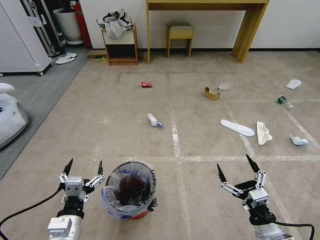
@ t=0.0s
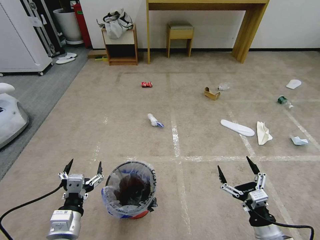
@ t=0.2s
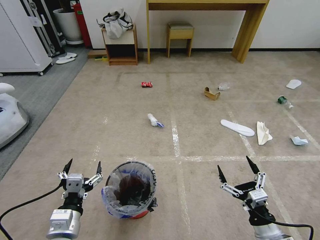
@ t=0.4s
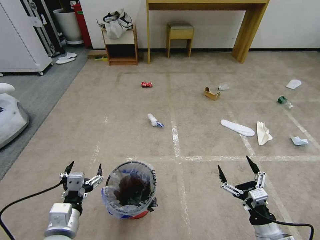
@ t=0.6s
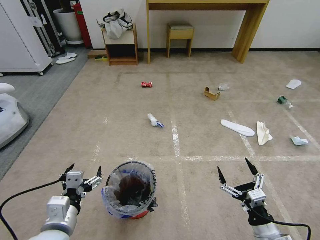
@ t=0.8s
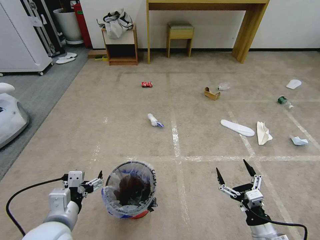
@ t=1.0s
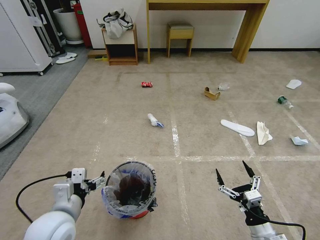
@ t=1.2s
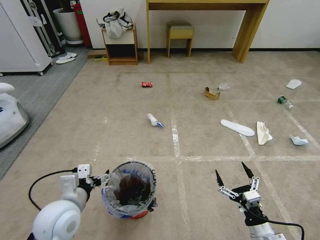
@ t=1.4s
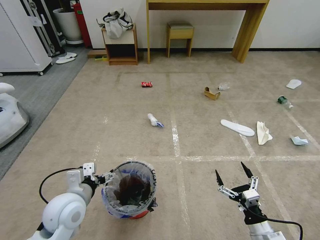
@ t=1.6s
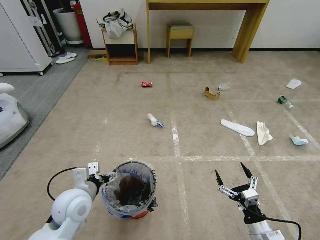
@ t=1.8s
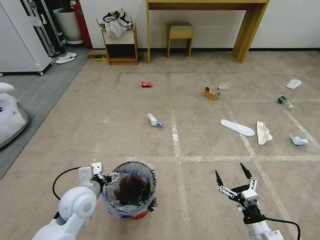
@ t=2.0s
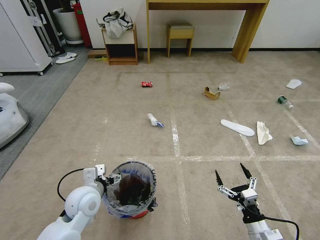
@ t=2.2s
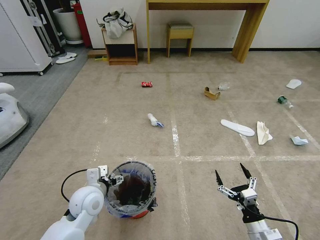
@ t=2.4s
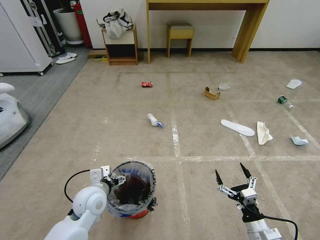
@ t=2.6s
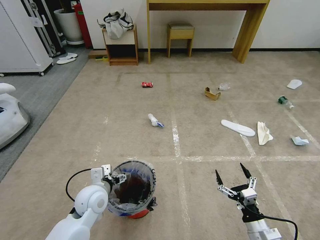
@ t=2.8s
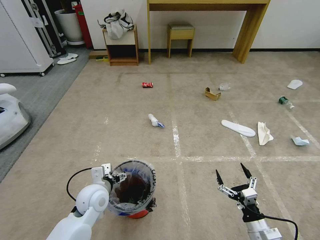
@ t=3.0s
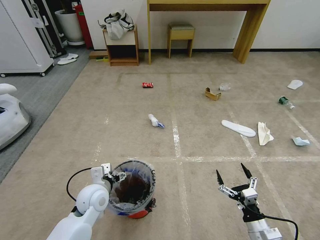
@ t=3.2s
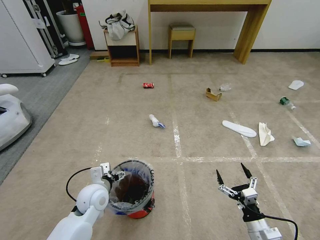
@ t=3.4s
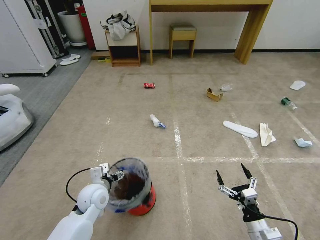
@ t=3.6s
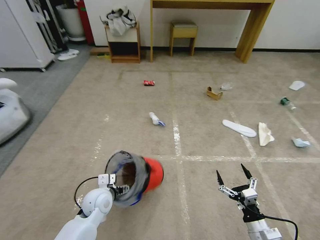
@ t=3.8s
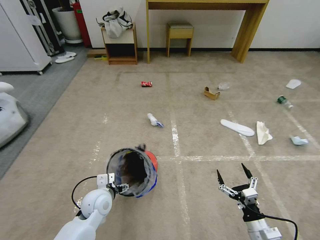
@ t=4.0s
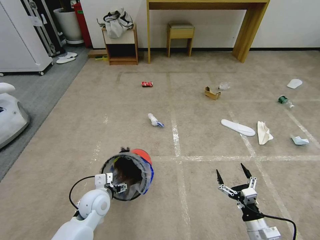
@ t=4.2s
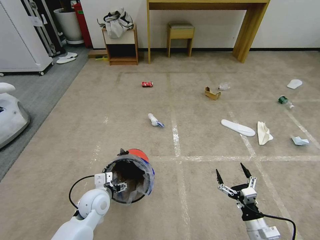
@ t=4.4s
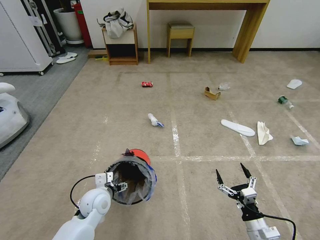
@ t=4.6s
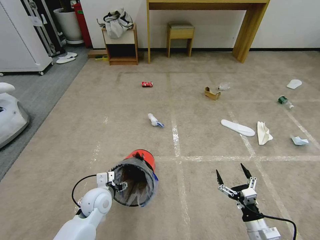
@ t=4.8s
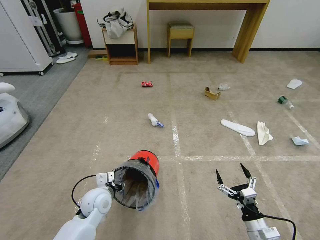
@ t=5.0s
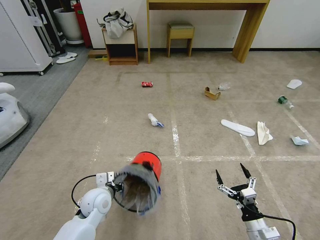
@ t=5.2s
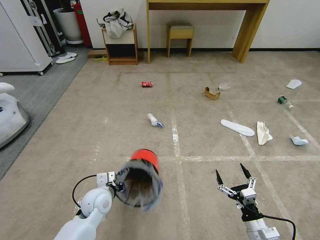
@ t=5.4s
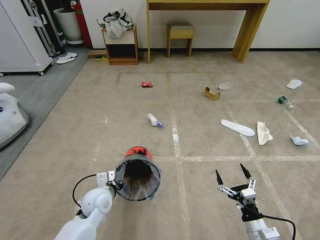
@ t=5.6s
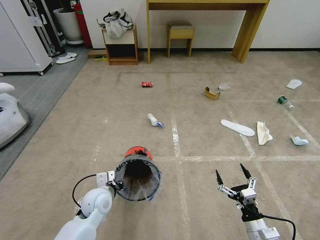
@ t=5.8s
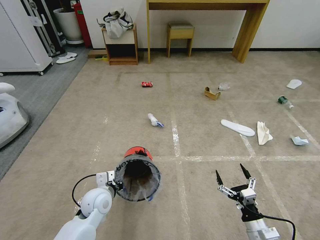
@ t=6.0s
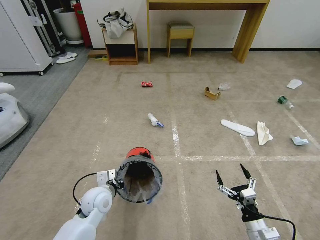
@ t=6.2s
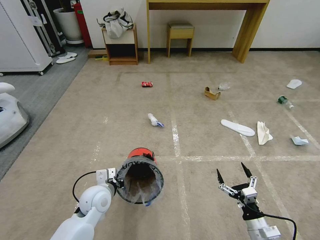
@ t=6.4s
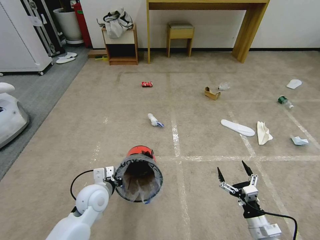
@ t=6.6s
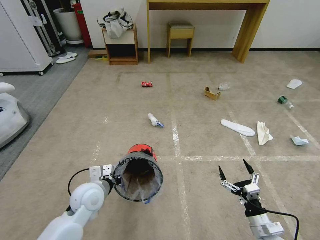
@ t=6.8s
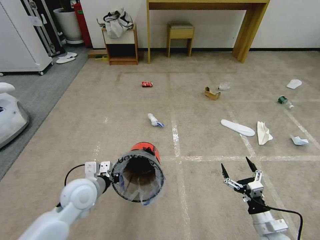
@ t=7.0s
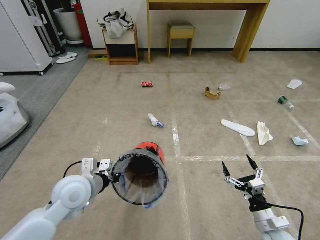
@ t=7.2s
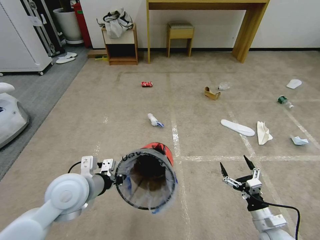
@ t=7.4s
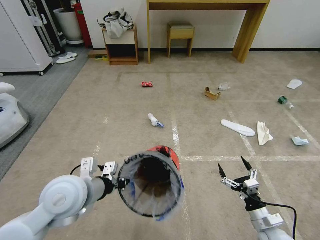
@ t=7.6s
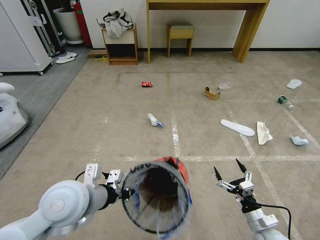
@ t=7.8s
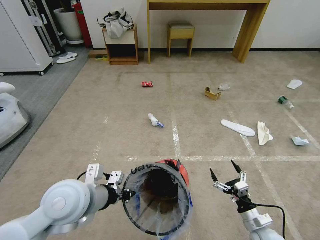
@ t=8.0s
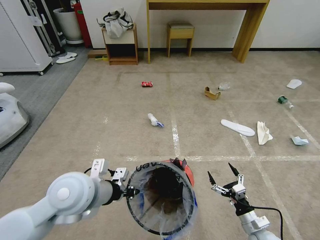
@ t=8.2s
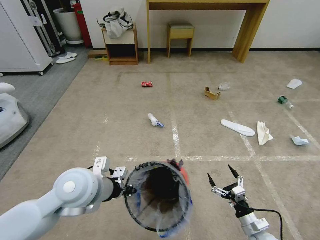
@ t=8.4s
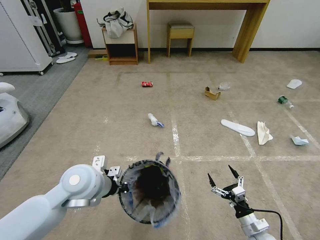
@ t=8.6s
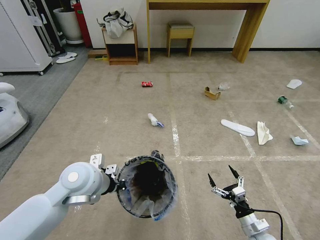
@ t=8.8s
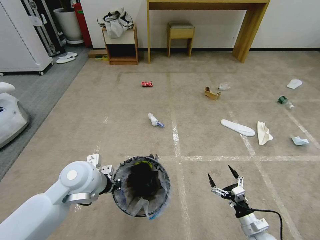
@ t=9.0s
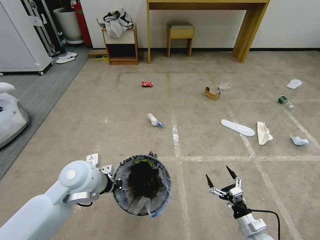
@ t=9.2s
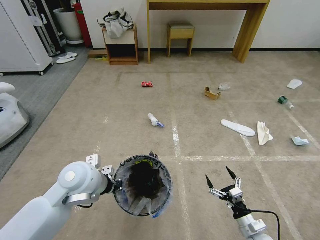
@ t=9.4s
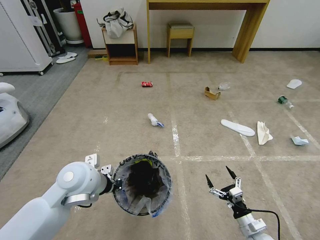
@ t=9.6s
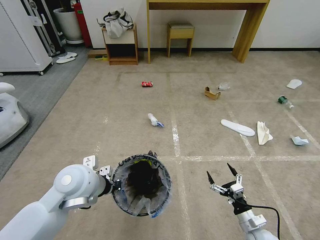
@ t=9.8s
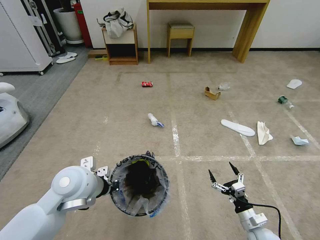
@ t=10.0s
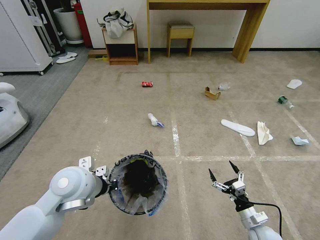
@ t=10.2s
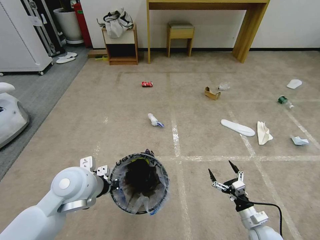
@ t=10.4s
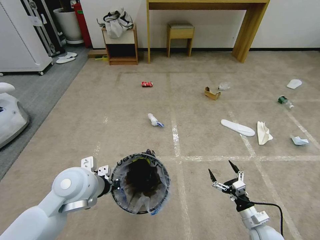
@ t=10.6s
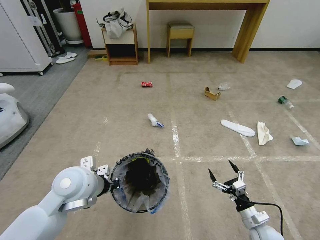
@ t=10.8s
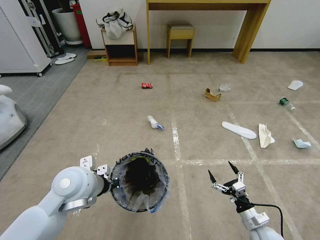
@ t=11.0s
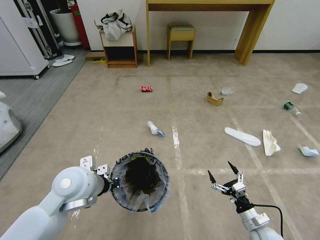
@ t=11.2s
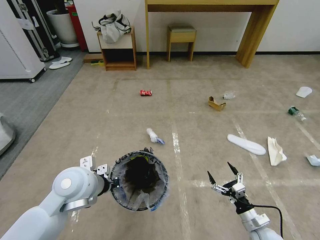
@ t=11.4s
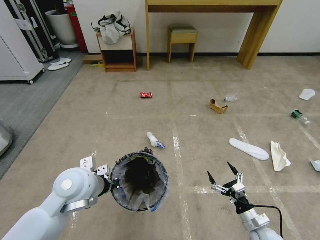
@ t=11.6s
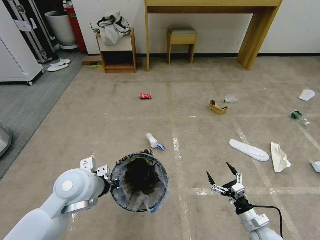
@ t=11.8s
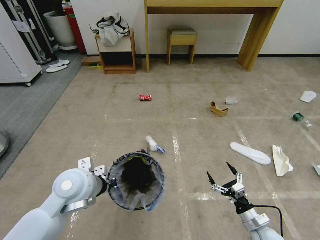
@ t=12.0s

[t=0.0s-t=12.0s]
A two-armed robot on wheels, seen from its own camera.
Task of the whole recording: Pick up the trash bin and place the garbage on the floor into it.
t=1.6s to t=3.0s: The left gripper moves downward and forward, about 10 cm.
t=3.0s to t=4.4s: There are only small adjustments of the grippers.
t=4.4s to t=6.0s: The left gripper closes.
t=6.0s to t=7.6s: The left gripper shifts about 20 cm upward.
t=7.6s to t=9.0s: The left gripper shifts some 5 cm forward.
t=9.0s to t=10.4s: The grippers make only small movements.

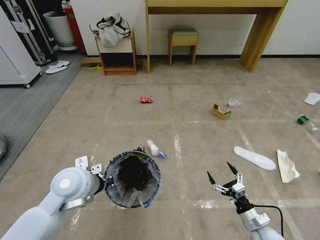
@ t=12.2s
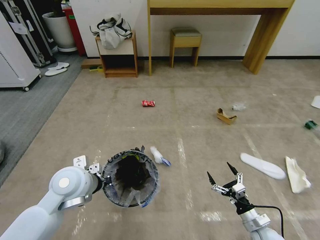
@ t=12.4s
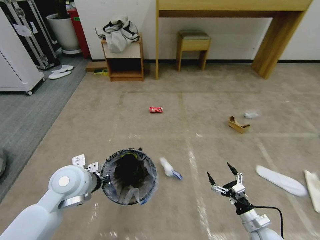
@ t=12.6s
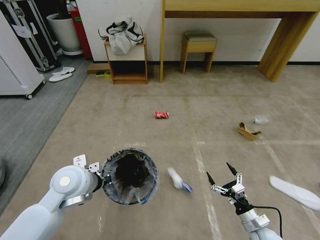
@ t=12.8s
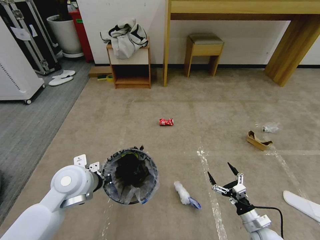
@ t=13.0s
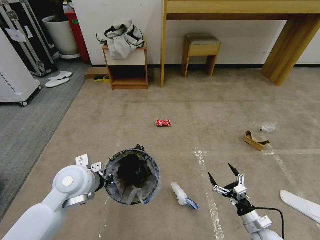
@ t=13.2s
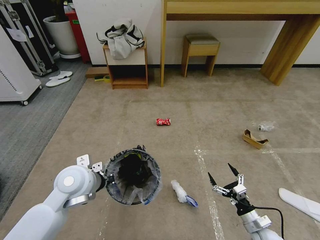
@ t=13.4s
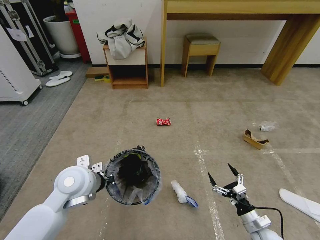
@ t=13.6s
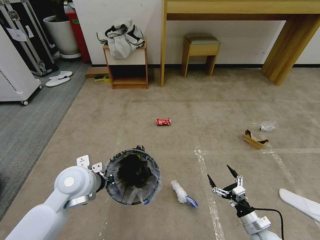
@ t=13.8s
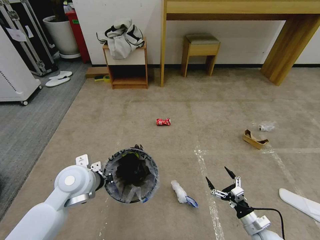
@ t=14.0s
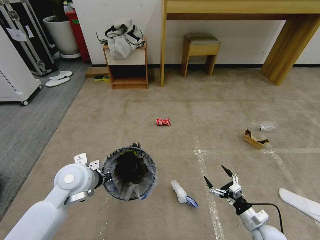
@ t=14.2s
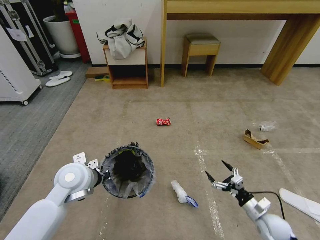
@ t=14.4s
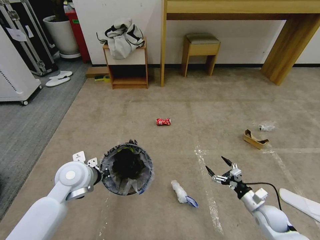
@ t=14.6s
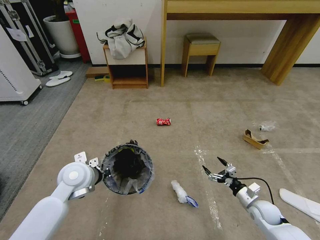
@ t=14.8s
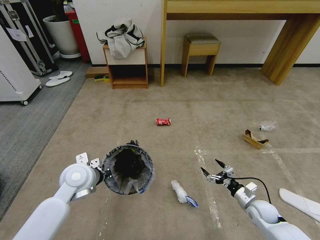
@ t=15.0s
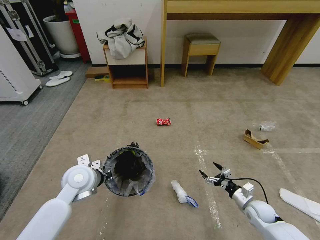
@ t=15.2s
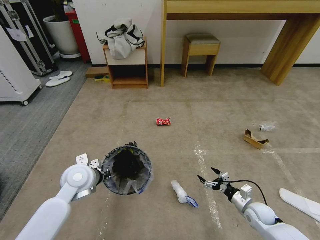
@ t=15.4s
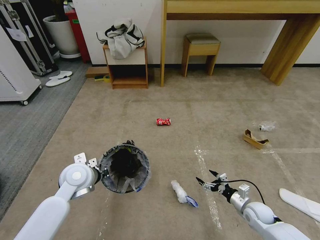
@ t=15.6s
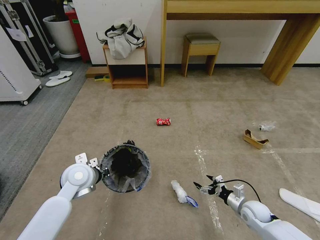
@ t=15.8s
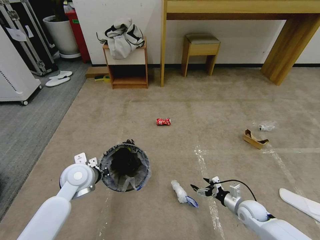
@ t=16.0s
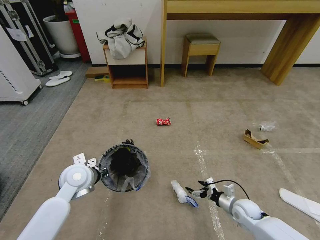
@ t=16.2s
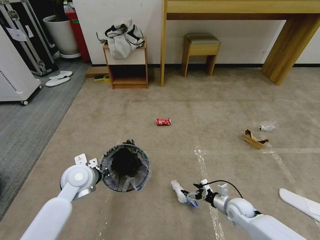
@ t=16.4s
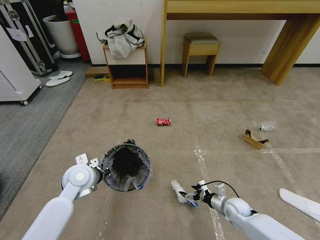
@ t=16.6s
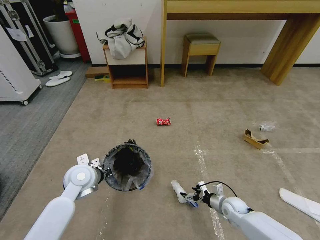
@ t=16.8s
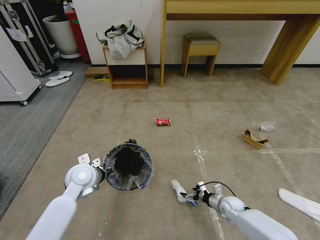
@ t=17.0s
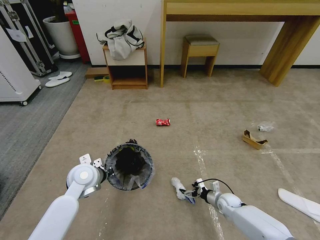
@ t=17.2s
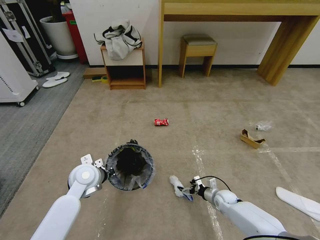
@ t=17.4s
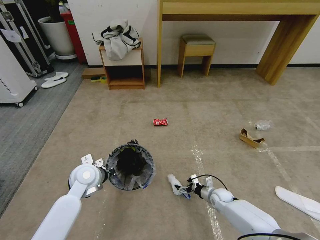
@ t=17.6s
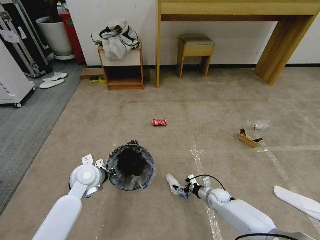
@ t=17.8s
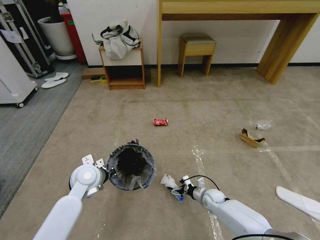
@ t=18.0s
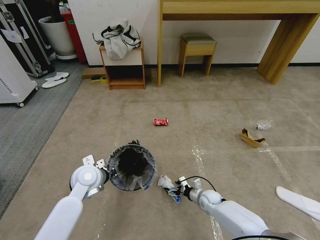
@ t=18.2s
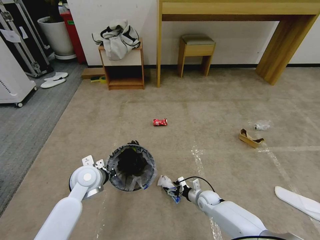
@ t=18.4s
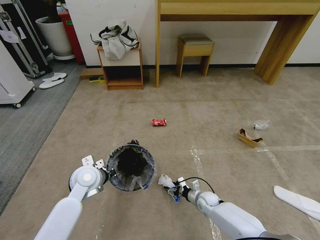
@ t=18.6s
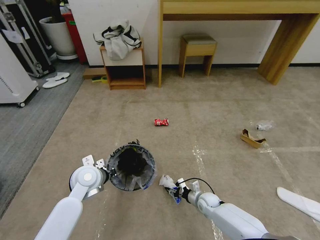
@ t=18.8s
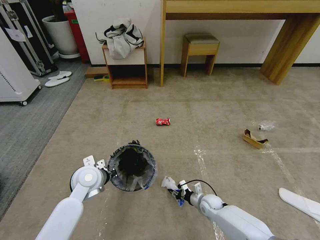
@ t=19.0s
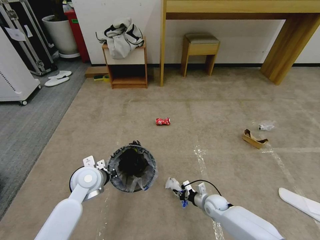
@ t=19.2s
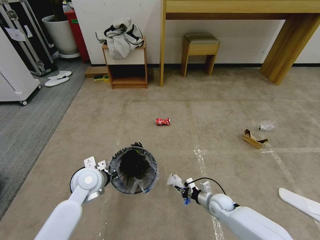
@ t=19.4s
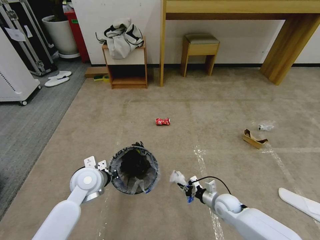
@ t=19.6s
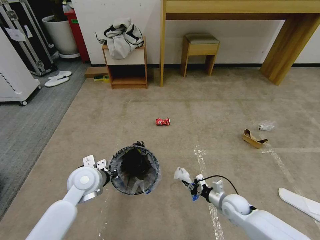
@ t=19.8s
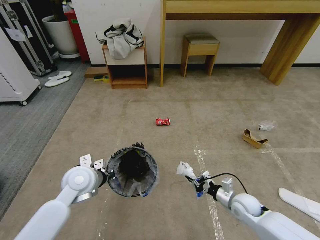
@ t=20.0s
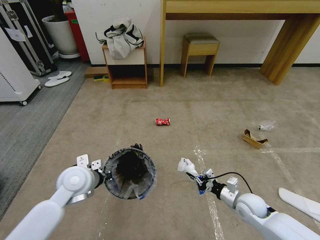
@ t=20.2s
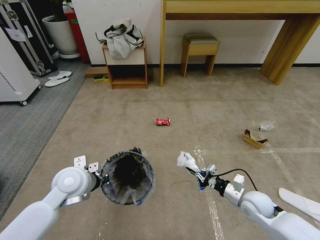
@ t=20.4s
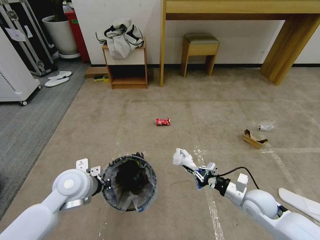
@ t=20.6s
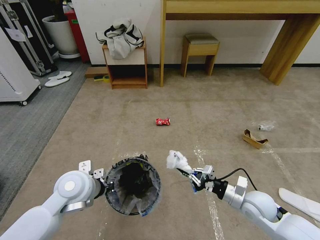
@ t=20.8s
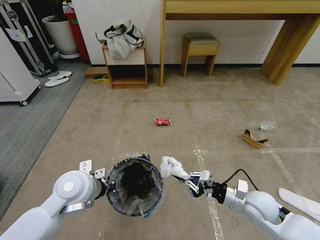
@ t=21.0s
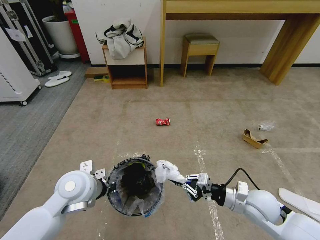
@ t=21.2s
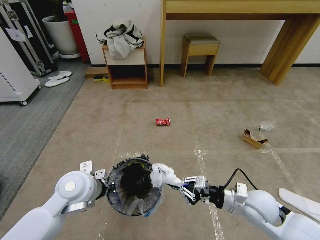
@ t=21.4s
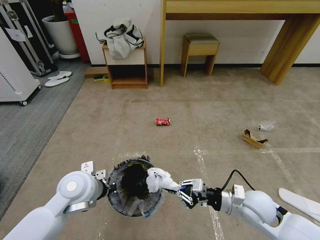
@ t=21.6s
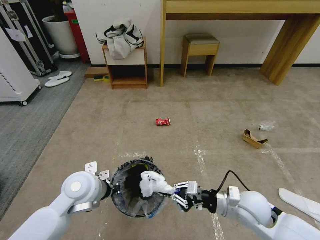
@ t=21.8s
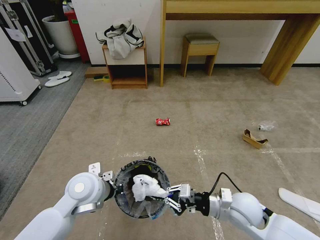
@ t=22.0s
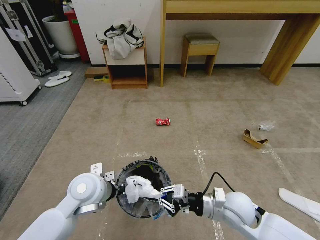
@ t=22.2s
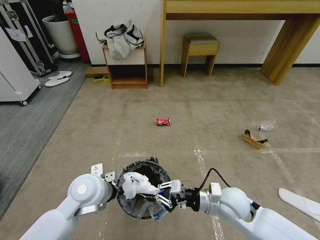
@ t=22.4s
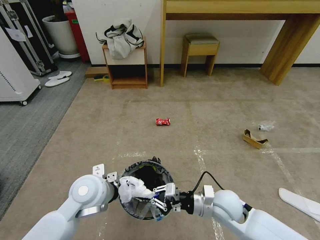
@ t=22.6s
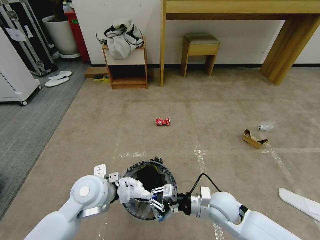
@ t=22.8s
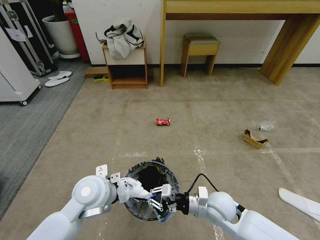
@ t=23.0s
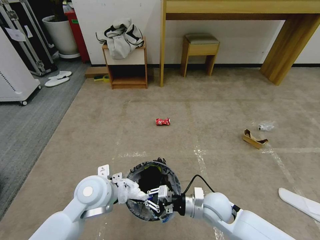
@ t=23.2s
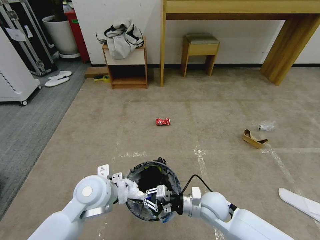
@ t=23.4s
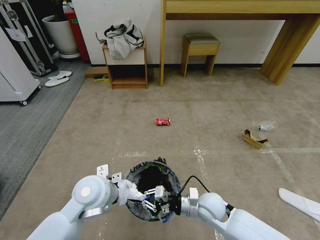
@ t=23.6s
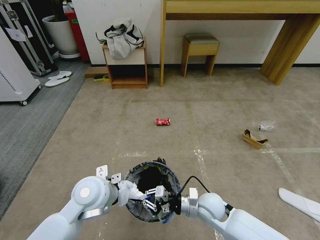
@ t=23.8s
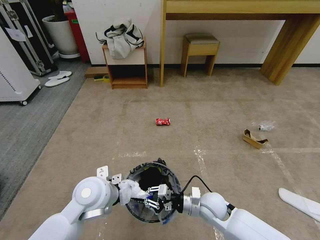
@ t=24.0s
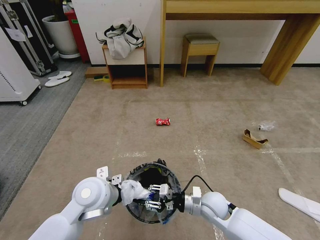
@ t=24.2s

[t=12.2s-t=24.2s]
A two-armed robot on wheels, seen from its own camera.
Task of the whole recording: Pick up the trash bin and place the garbage on the floor into it.
t=13.8s to t=15.2s: The left gripper moves approximately 5 cm. The right gripper heads forward, covering approximately 10 cm.
t=15.2s to t=16.6s: The right gripper shifts about 10 cm to the left.
t=16.6s to t=18.2s: The right gripper moves to the left, downward and forward, some 10 cm.
t=18.2s to t=19.8s: The right gripper is displaced upward, to the right and backward by about 10 cm, and closes.
t=19.8s to t=21.2s: The left gripper moves approximately 5 cm. Meanwhile the right gripper shifts roughly 15 cm upward.
t=21.2s to t=22.6s: The right gripper travels to the left by roughly 10 cm.
t=22.6s to t=24.2s: The right gripper heads downward, covering about 5 cm, and opens.
